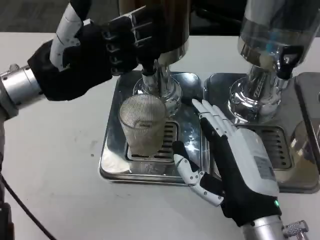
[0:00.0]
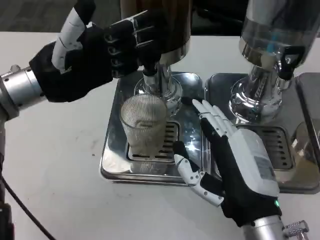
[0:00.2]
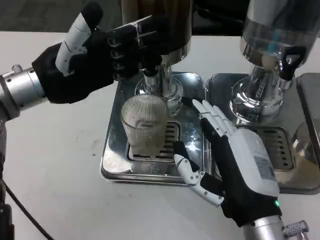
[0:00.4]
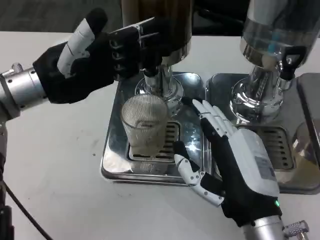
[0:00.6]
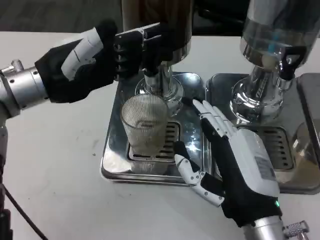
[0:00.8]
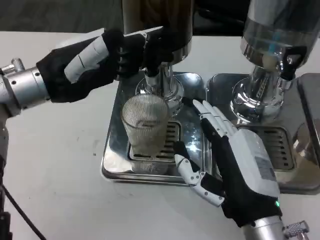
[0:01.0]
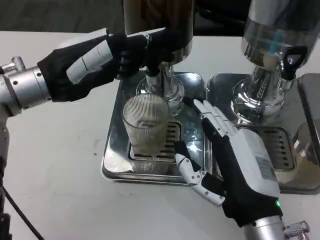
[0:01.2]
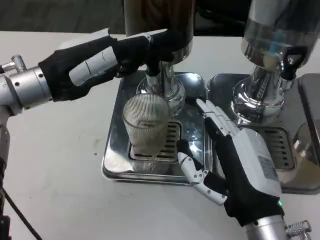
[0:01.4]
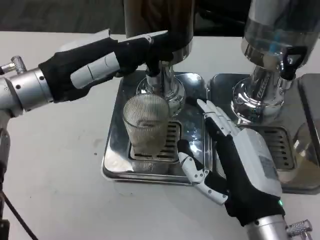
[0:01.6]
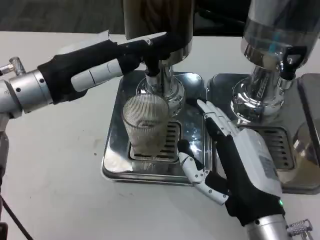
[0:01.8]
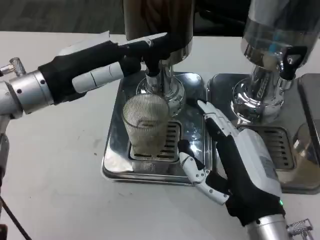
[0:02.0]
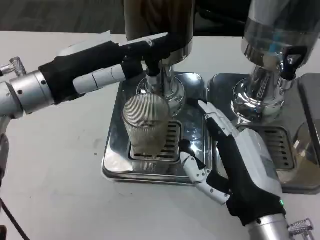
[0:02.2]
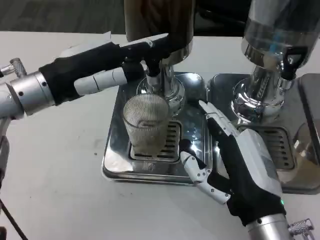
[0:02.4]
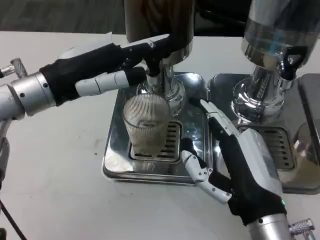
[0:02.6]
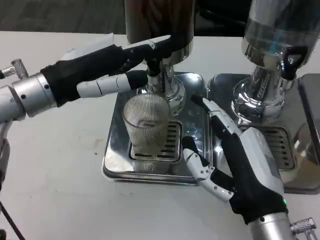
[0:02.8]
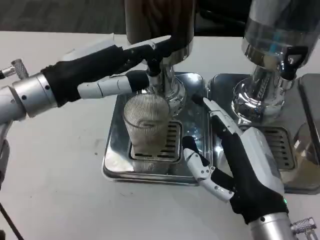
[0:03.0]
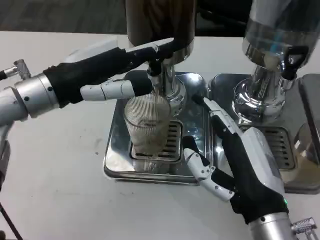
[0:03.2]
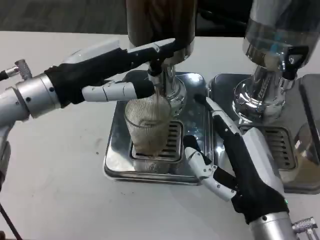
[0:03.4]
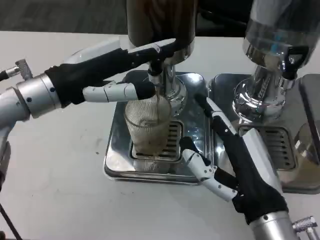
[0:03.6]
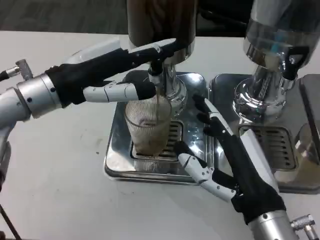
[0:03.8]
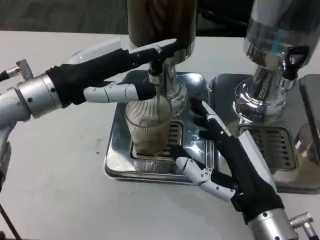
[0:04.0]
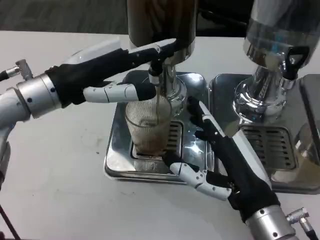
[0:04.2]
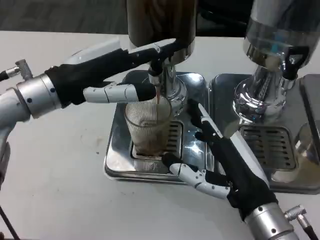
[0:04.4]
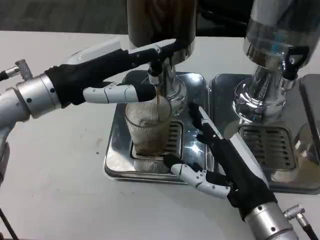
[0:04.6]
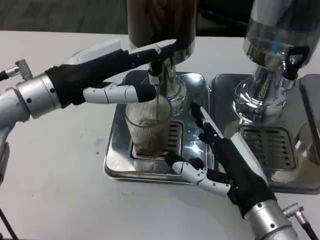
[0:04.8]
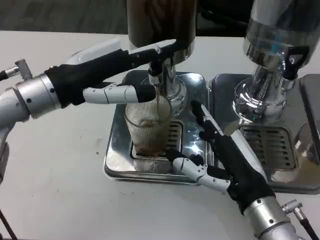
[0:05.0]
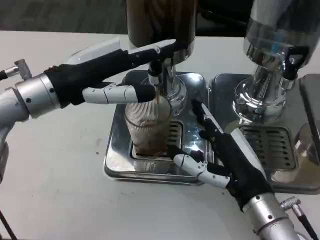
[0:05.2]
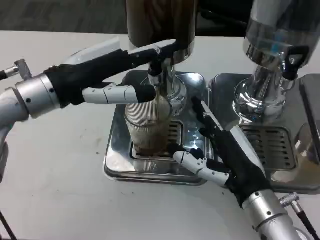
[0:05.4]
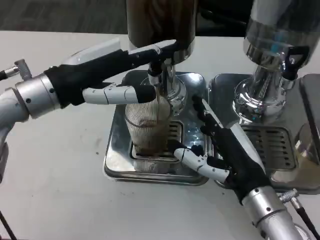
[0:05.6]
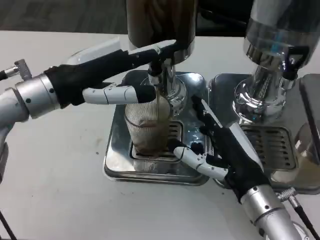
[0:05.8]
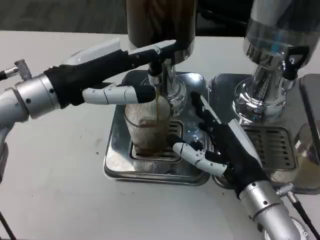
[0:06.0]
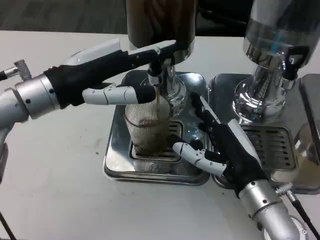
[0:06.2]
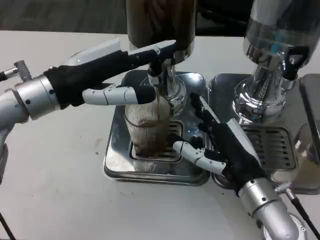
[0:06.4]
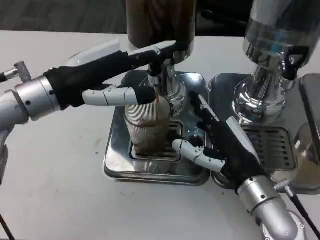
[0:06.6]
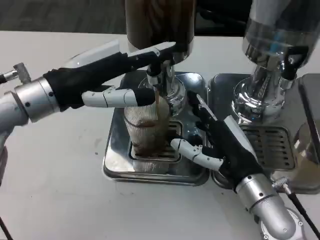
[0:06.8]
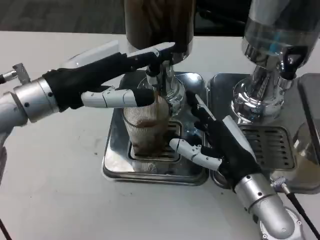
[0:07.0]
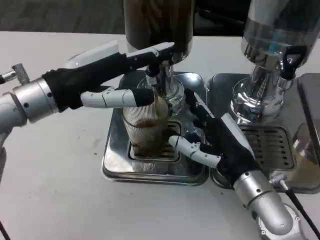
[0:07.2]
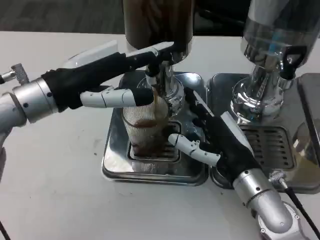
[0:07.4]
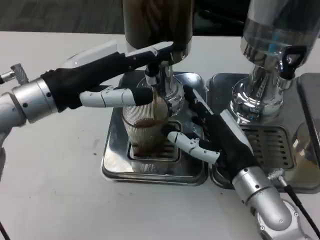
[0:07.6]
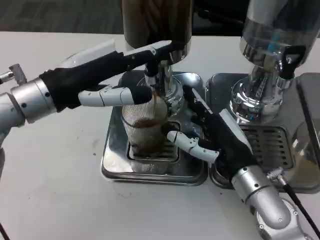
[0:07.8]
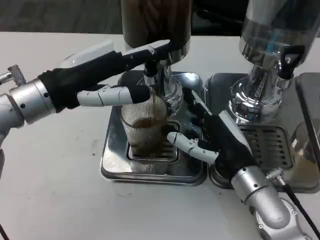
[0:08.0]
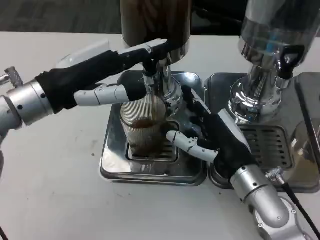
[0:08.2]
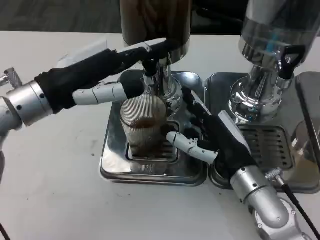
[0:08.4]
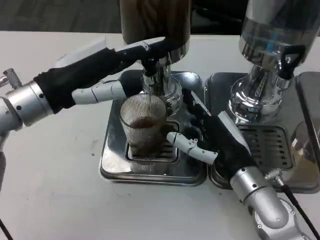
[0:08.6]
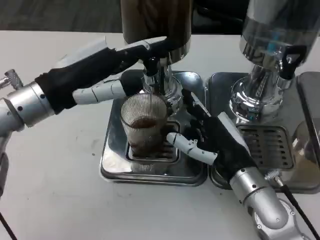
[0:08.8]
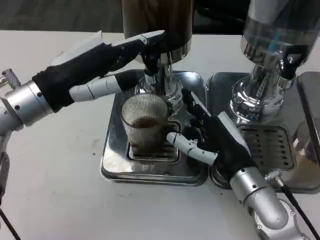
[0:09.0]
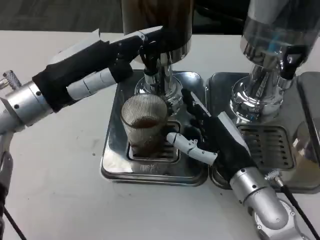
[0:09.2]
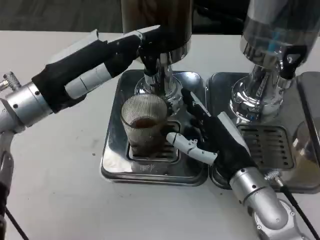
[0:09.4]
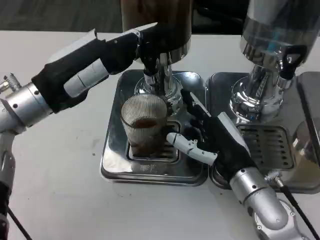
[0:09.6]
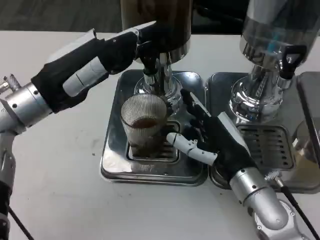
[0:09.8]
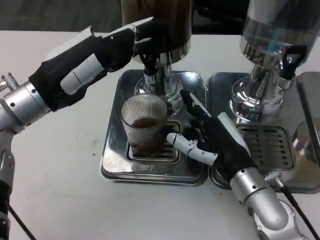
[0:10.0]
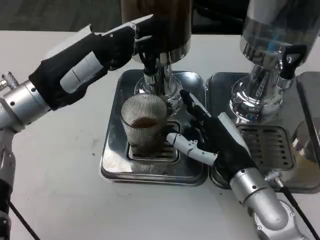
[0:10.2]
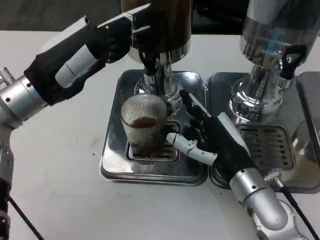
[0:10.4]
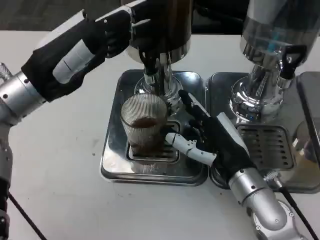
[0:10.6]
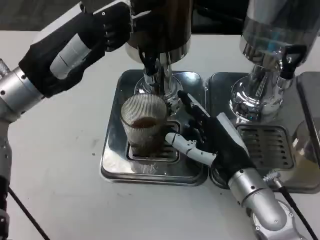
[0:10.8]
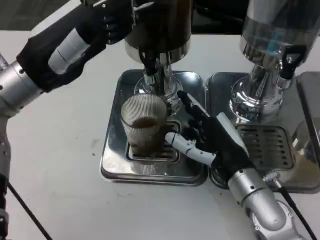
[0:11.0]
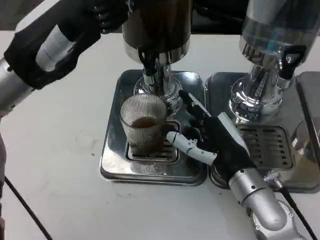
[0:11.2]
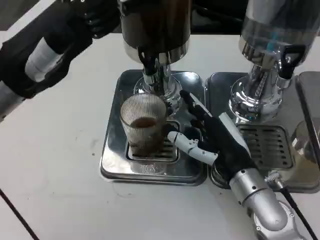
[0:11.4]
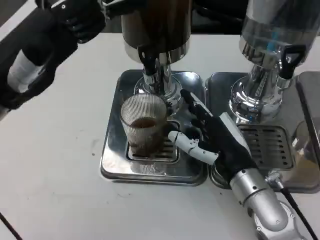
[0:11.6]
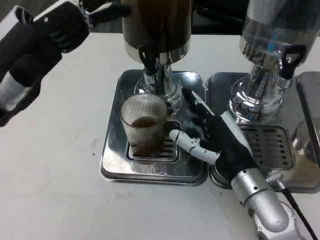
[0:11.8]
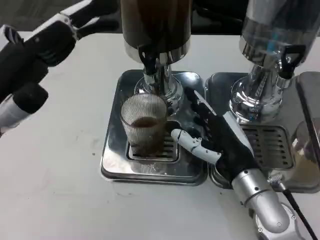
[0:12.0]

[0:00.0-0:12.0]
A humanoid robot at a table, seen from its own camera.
Task of the whole recording: Grasp the cup under the faucet to collect the drink, then remove the cup.
0:01.6 to 0:03.0: The hands make only small movements.
0:04.4 to 0:06.0: The hands move only a little.
0:07.6 to 0:09.0: The hands make only small movements.
0:09.0 to 0:10.4: The hands move only a little.
0:10.4 to 0:12.0: The left hand shifts some 10 cm backward.

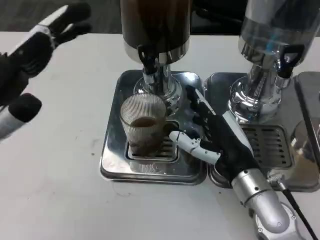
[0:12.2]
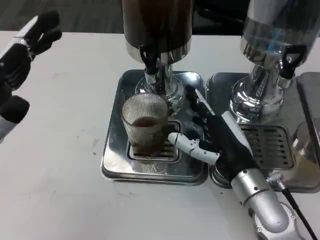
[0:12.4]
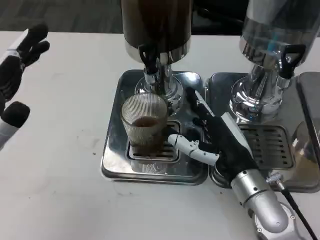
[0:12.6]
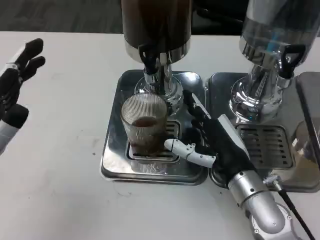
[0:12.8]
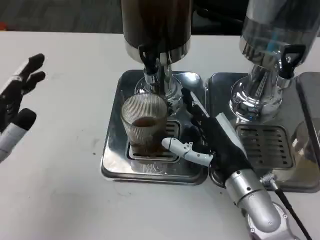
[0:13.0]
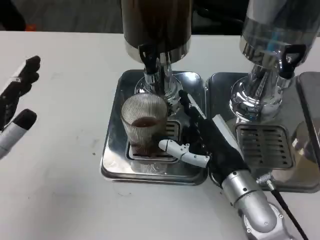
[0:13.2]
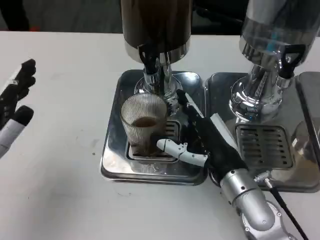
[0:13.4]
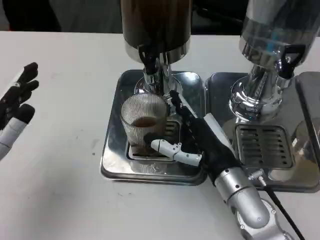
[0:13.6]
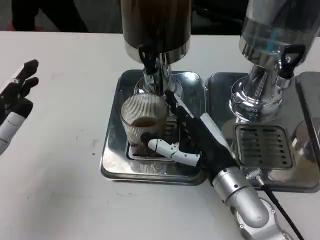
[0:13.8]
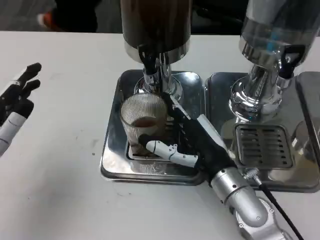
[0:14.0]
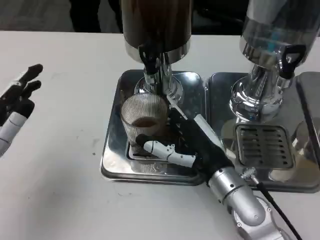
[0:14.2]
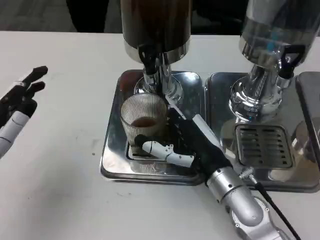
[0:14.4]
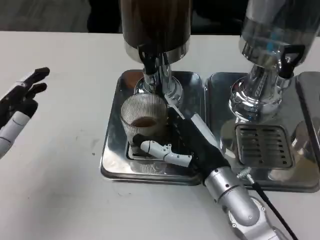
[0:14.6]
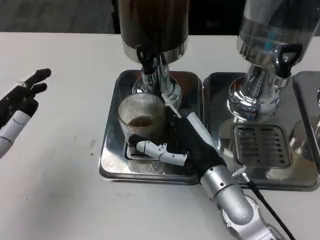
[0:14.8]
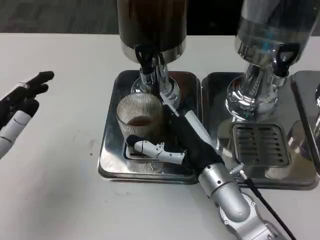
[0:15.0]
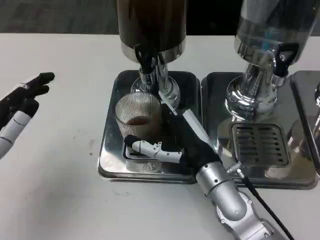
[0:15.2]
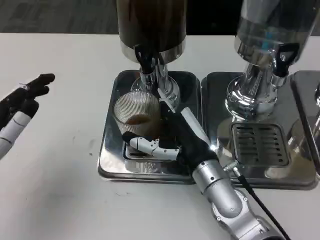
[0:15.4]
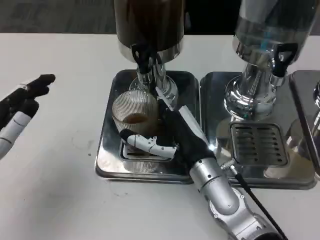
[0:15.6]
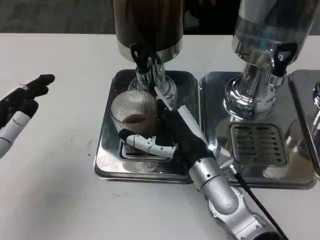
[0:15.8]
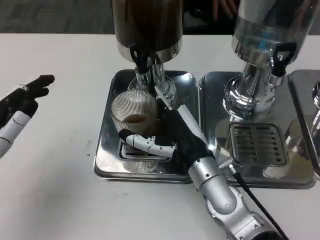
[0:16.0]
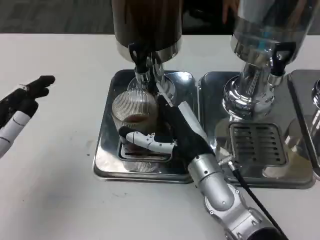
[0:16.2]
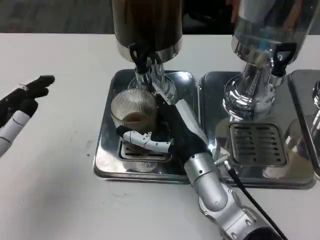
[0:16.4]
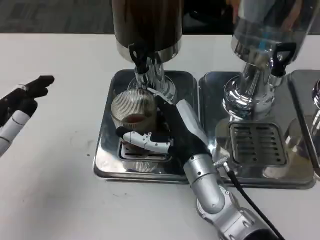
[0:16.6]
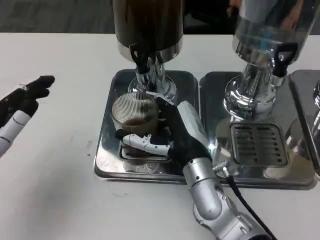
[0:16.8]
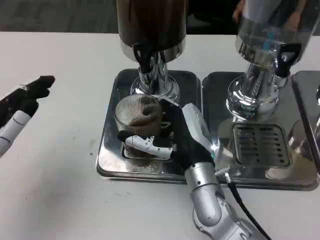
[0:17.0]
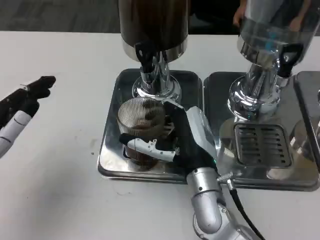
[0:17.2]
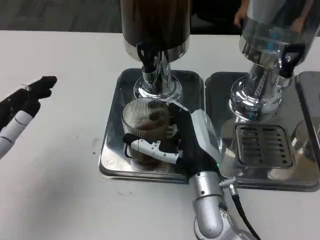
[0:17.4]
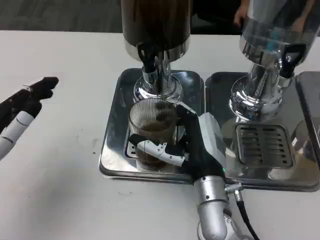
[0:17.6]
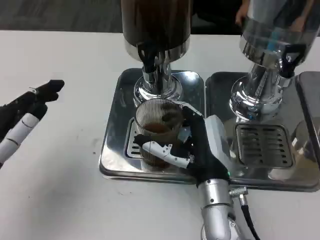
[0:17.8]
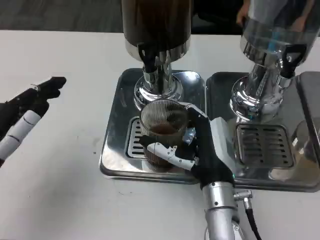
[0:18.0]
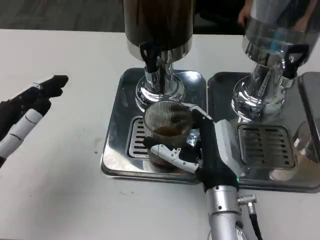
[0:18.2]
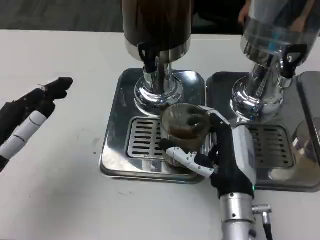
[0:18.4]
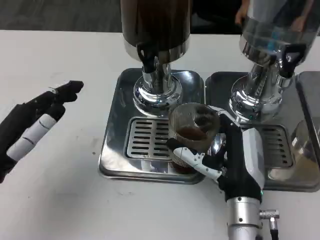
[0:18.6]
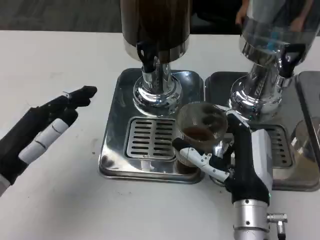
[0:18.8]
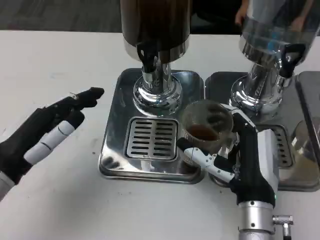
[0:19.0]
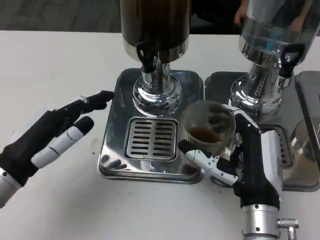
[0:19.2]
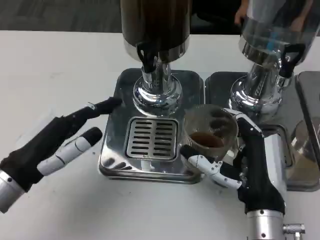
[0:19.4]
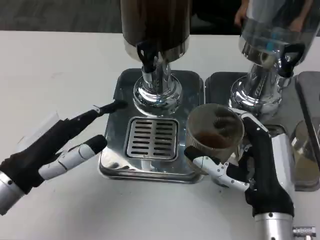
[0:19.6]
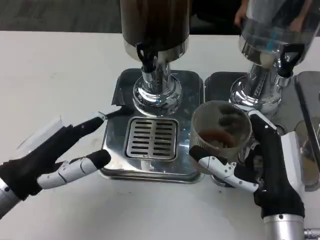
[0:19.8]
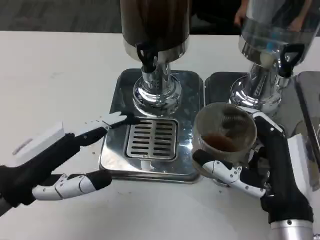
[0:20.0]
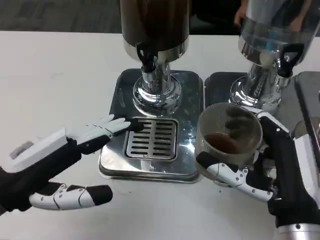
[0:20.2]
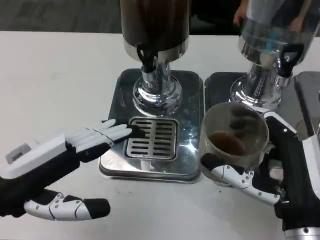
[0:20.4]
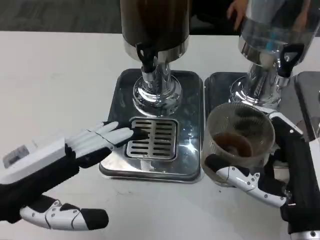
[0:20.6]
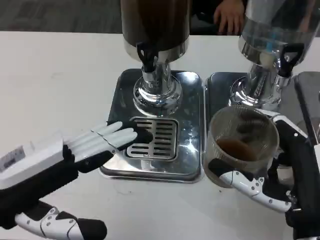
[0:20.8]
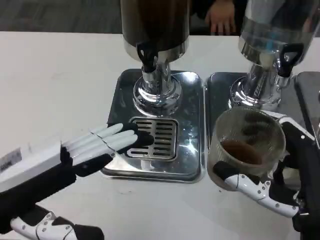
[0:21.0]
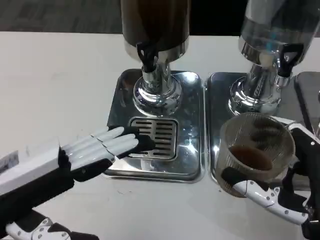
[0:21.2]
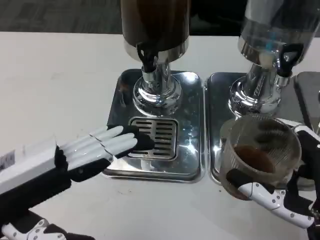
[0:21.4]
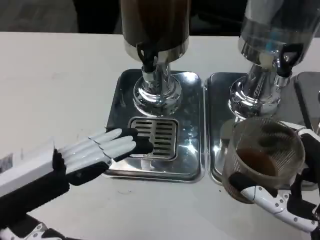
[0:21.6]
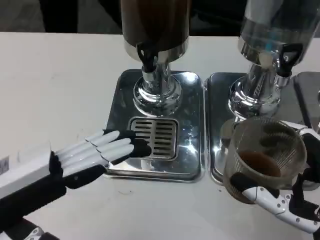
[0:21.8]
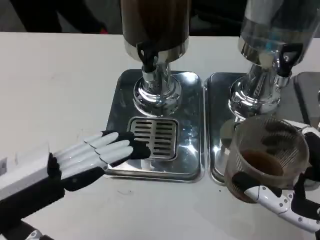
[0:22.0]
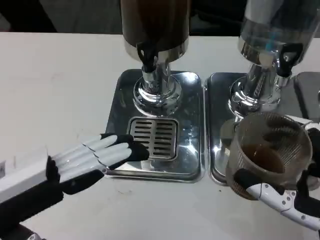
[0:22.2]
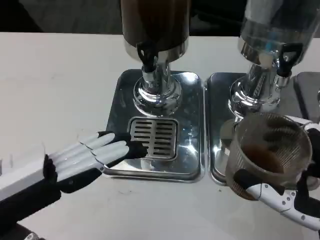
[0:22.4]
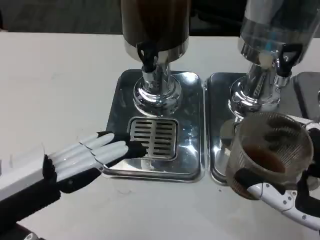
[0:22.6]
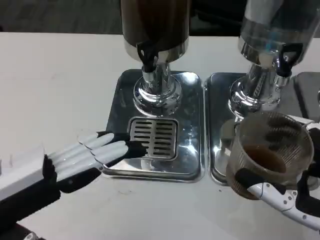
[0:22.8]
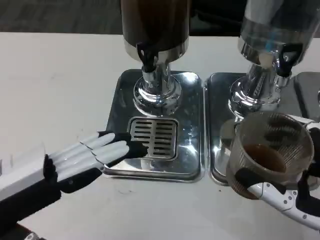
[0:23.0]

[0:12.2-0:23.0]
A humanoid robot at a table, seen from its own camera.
Task of the whole recording: Grasp the cup under the faucet to collect the drink, then remove the cup.
0:12.2 to 0:13.8: The left hand goes roughly 5 cm downward.
0:15.2 to 0:16.8: The hands stay close to where they were, moving slightly.
0:16.8 to 0:18.4: The right hand ends up some 5 cm from where it was.
0:18.4 to 0:20.0: The right hand shifts roughly 10 cm backward, upward and to the right.
0:20.0 to 0:21.4: The left hand shifts by some 5 cm. The right hand travels backward by some 5 cm.
0:21.4 to 0:23.0: The hands make only small movements.
